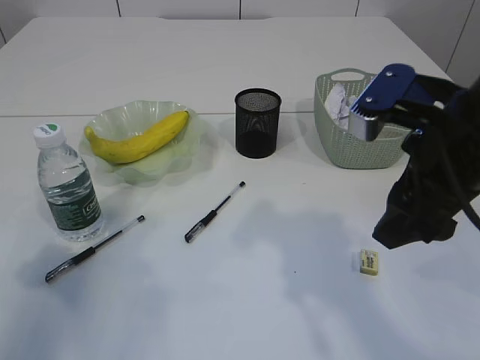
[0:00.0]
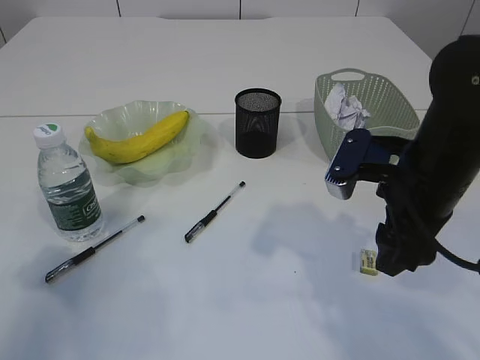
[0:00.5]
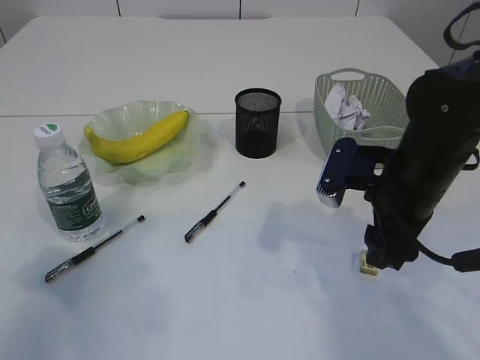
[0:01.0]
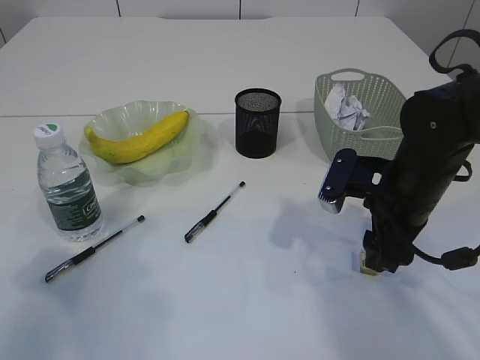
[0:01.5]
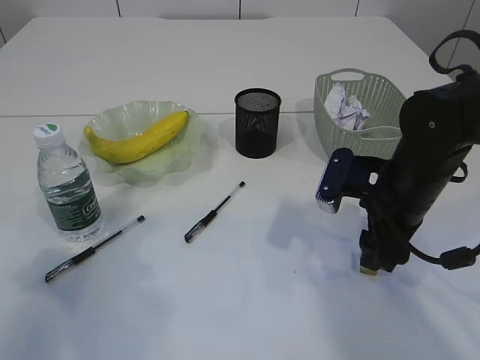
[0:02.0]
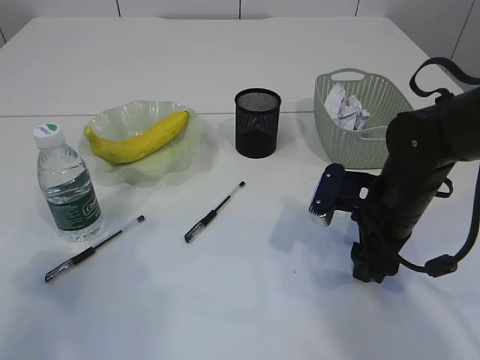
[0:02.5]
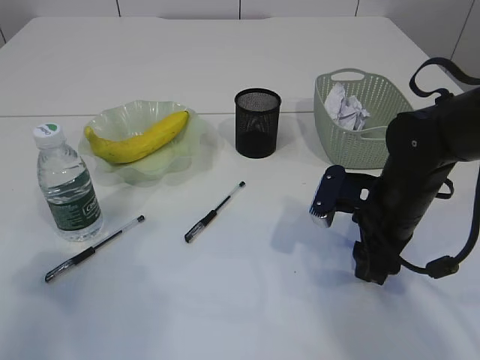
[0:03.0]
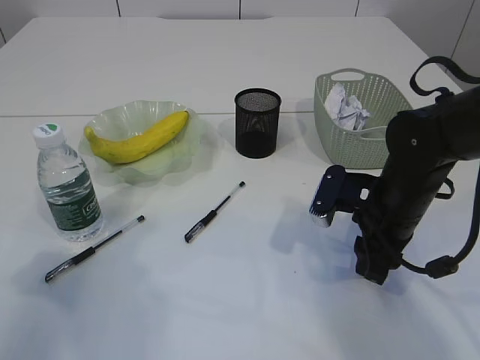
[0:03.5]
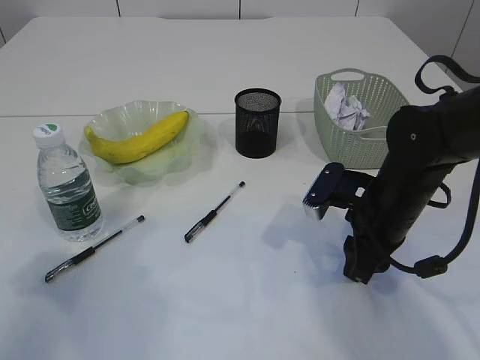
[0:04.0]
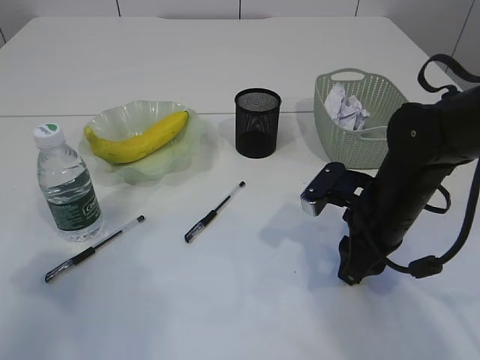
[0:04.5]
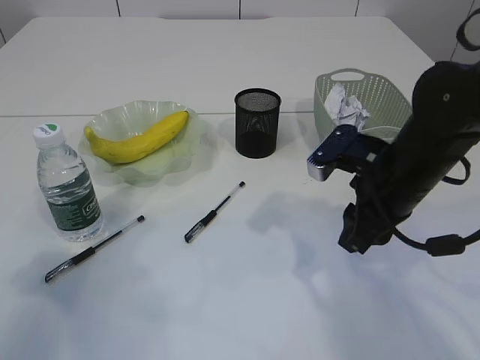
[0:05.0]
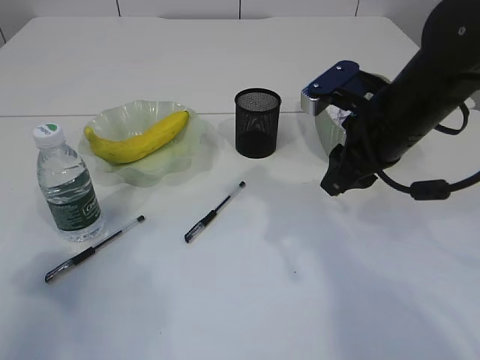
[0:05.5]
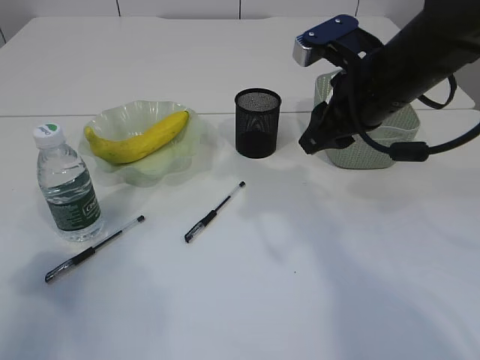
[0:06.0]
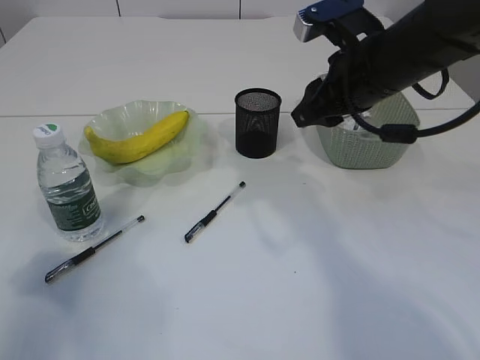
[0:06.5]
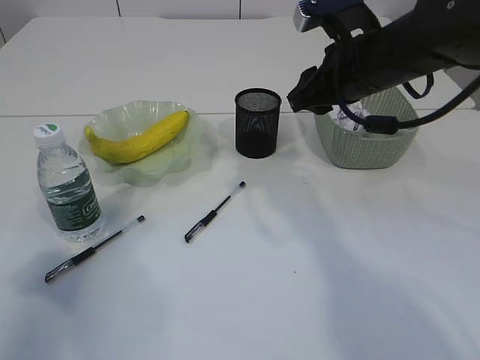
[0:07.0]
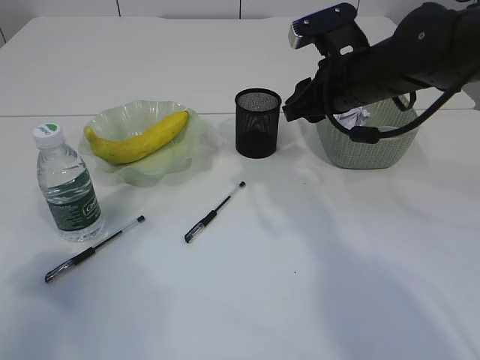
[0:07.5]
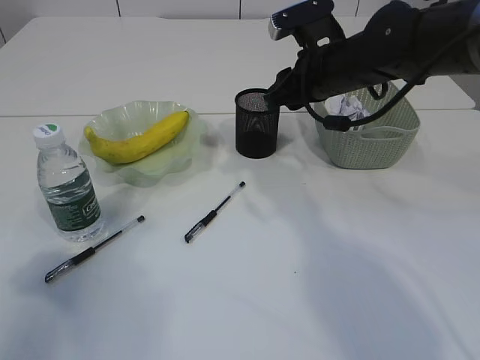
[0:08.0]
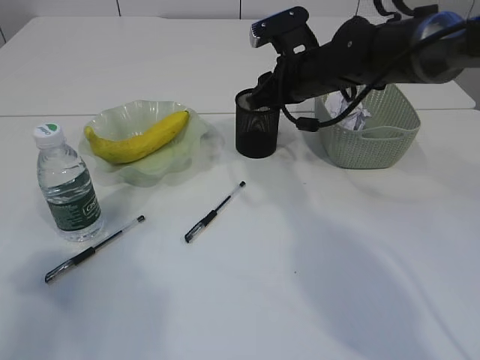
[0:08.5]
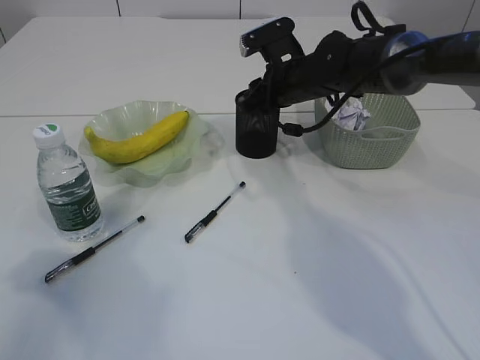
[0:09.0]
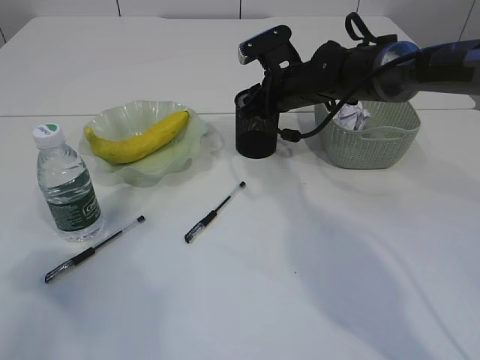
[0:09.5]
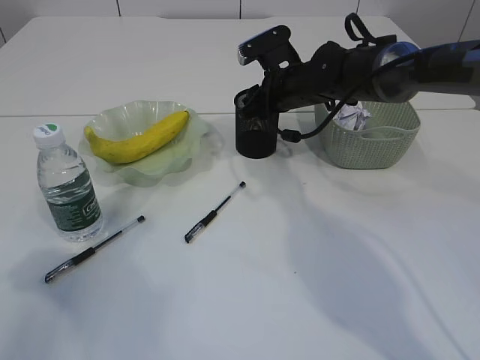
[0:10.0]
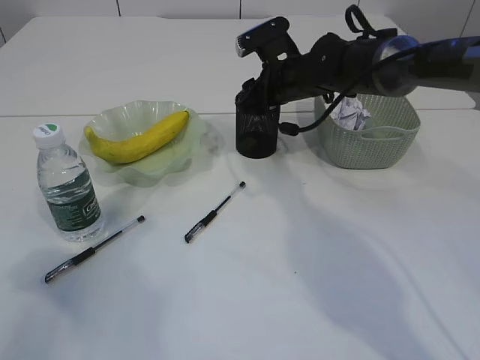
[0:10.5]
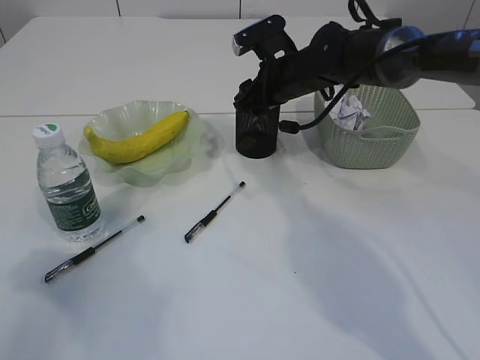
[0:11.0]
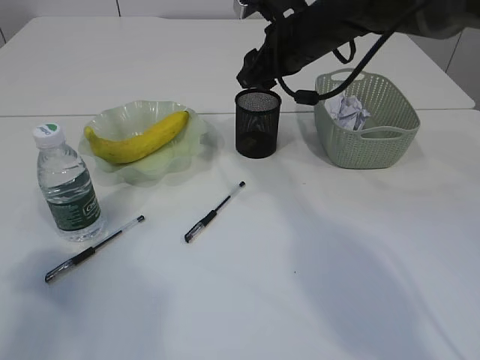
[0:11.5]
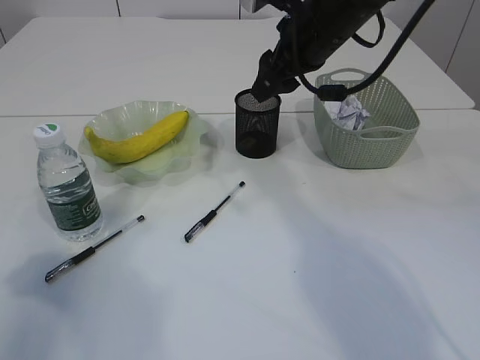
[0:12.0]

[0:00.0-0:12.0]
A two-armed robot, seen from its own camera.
Step, 0:00.0 to 0:05.0: Pick up the eraser.
Step, 0:05.5 to 0:11.0: Place the eraser into the pen holder.
0:00.0 to 0:02.0: The right gripper shifts approximately 15 cm downward and forward.
0:02.0 to 0:04.0: The right gripper closes.
0:04.0 to 0:06.0: The right gripper heads upward, covering some 15 cm.
0:06.0 to 0:08.0: The right gripper is displaced forward by approximately 10 cm.
0:08.0 to 0:10.0: The right gripper shifts about 10 cm forward and downward.
0:10.0 to 0:12.0: The right gripper goes approximately 15 cm upward and backward.

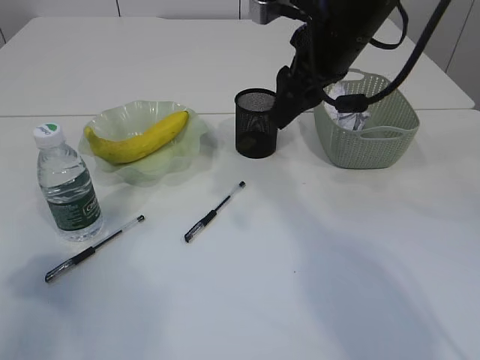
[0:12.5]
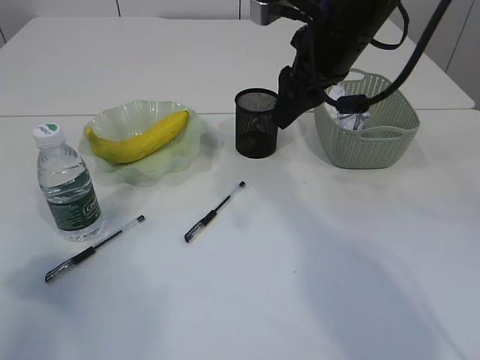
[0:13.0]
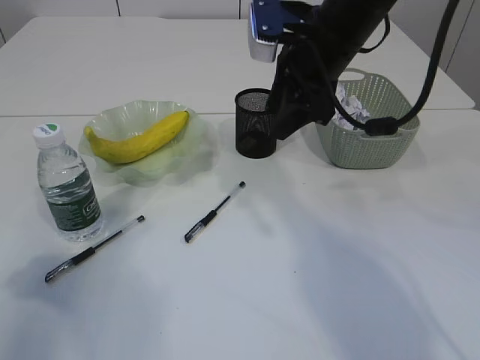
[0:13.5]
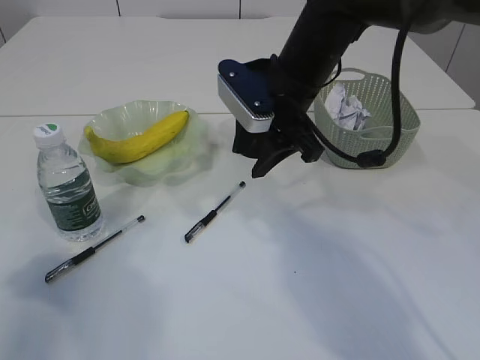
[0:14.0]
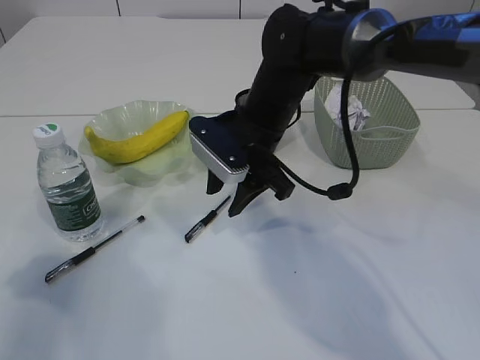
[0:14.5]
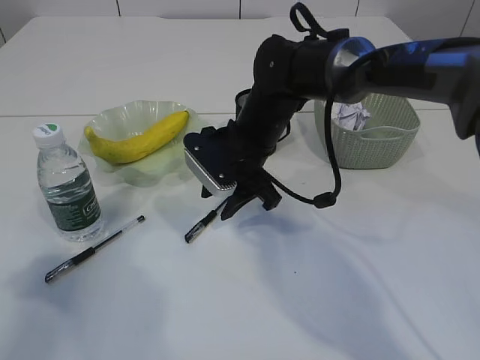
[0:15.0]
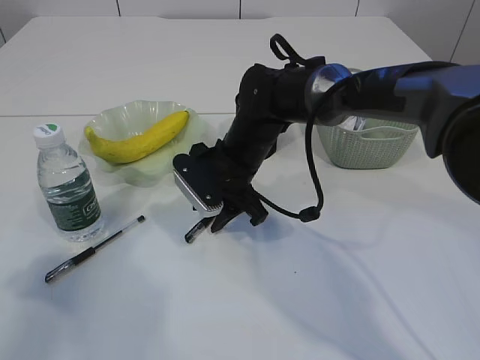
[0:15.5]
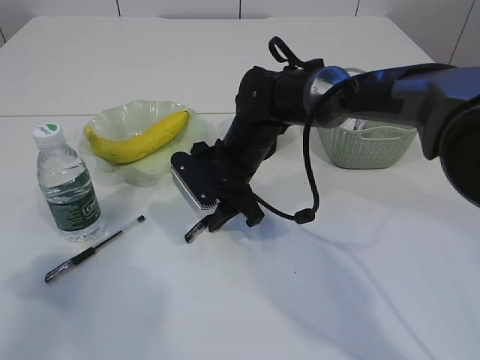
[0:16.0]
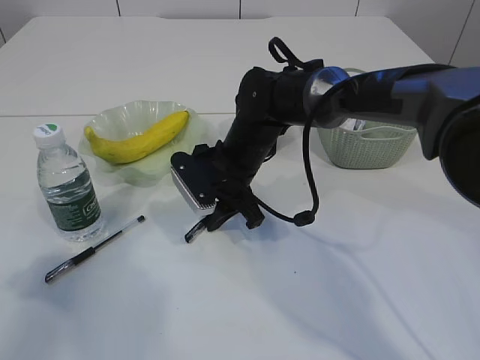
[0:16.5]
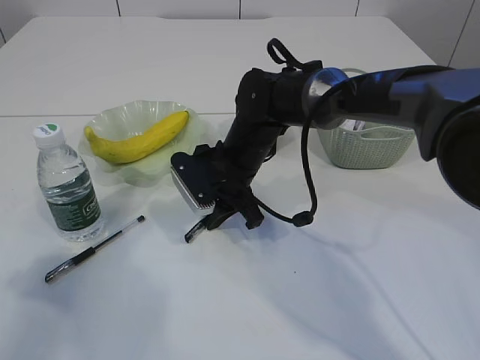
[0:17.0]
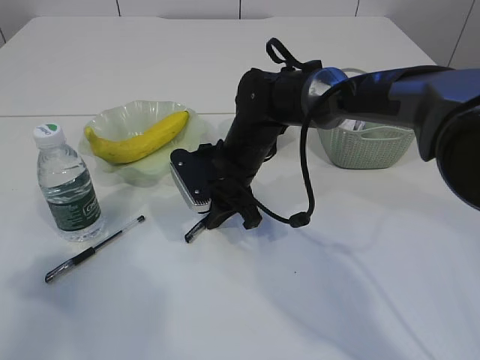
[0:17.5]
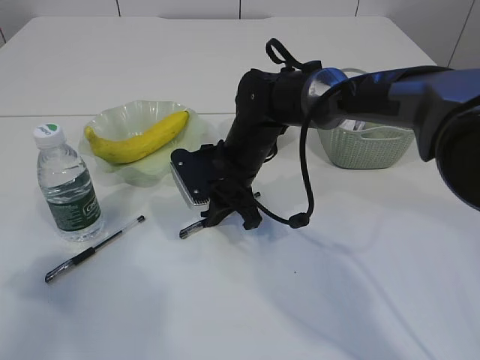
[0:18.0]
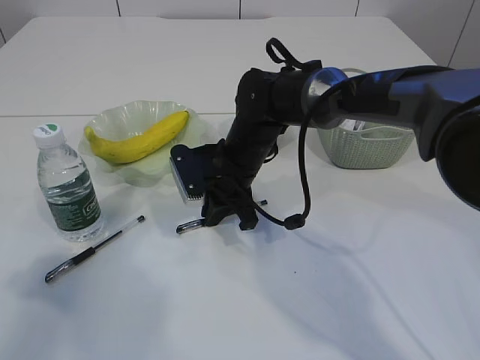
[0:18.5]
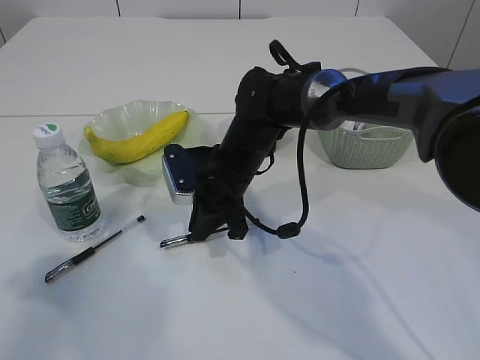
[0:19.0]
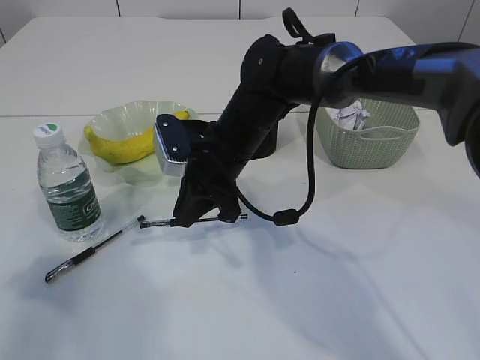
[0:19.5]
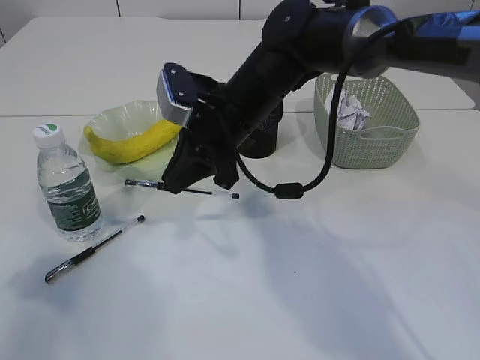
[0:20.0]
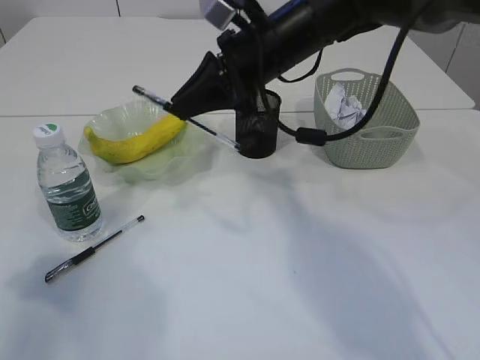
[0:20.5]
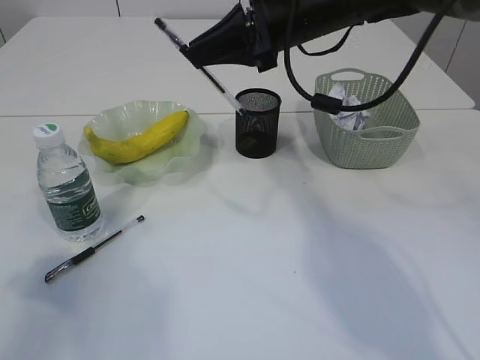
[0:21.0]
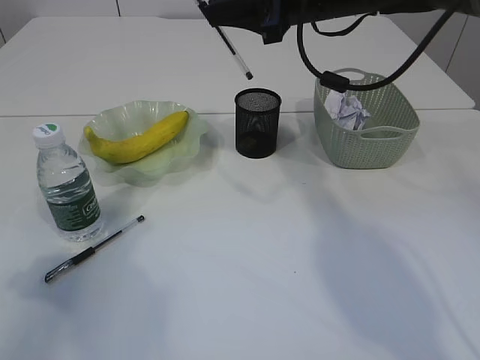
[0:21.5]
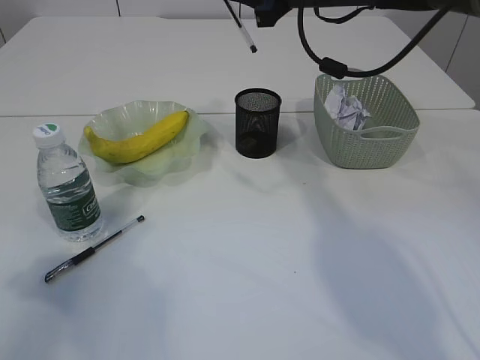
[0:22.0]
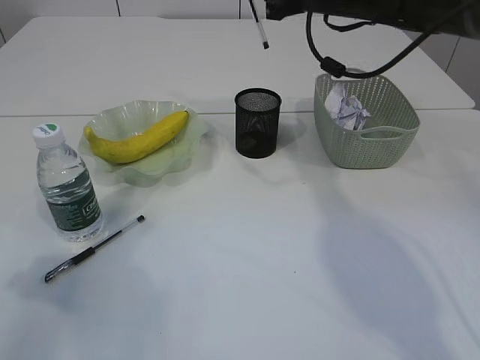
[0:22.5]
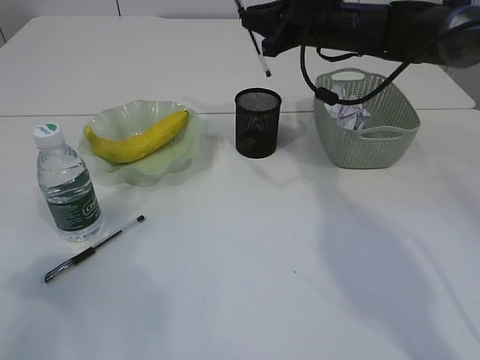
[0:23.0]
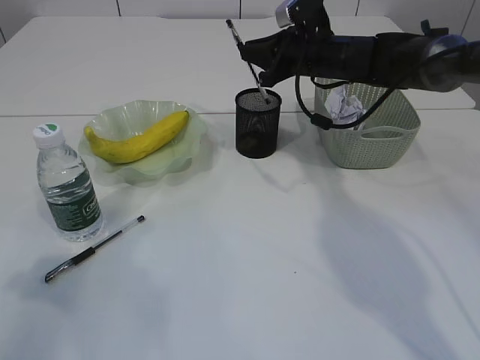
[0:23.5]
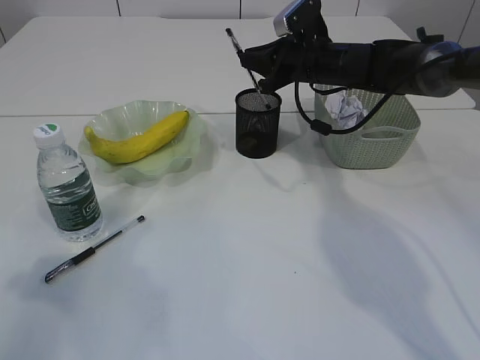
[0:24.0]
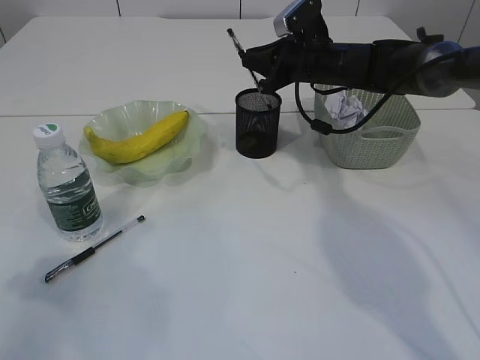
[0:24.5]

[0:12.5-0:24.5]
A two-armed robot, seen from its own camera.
Step, 0:12.5 to 0:19.5: Pick up the pen with right arm.
0:12.5 to 0:14.5: The right gripper moves downward and to the left, approximately 15 cm.
0:14.5 to 0:16.5: The right gripper moves downward, about 5 cm.
0:16.5 to 0:18.5: The right gripper closes up.
0:18.5 to 0:20.5: The right gripper travels upward by approximately 15 cm.
0:20.5 to 0:22.5: The right gripper goes roughly 10 cm to the right and forward.
0:22.5 to 0:24.5: The right gripper shifts about 10 cm downward.

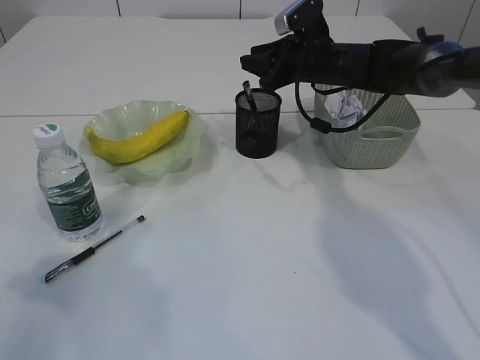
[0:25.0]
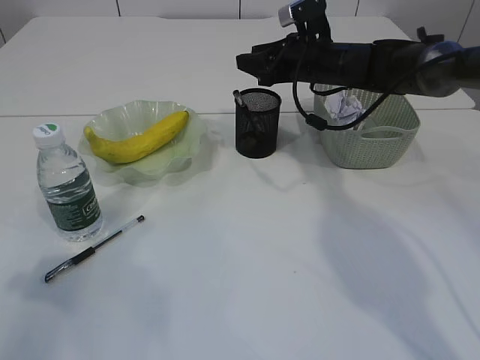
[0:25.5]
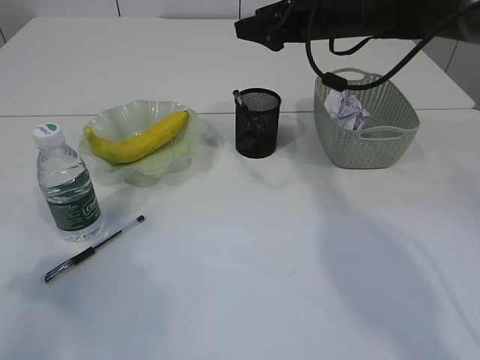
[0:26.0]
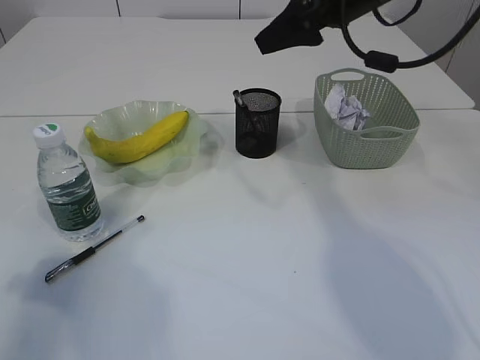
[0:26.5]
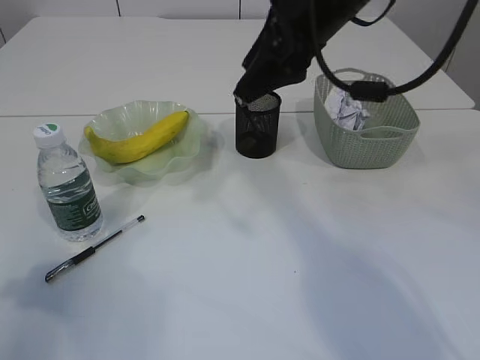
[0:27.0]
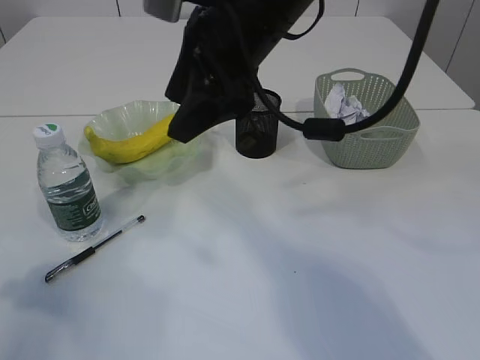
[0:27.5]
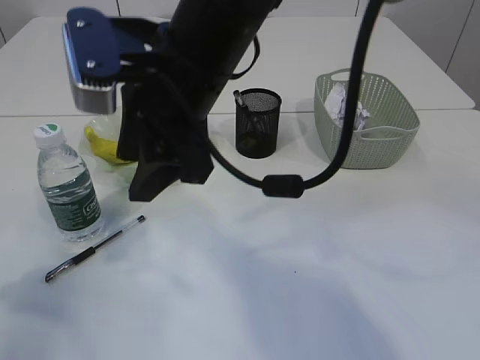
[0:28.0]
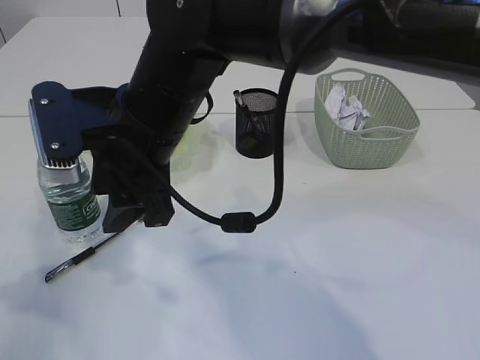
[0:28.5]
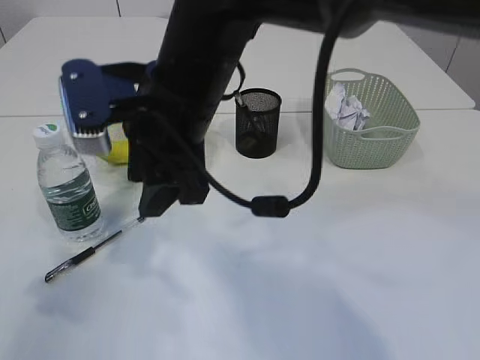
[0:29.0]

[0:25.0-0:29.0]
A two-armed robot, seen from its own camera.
0:25.0 to 0:27.0: The right gripper travels backward and upward by about 20 cm, and opens up.
0:27.0 to 0:29.0: The right gripper is displaced to the left, backward and downward by approximately 20 cm.
